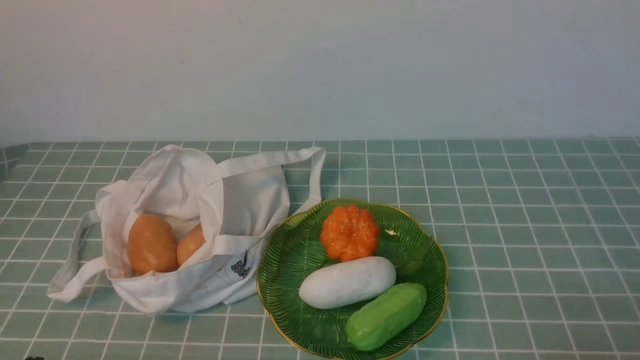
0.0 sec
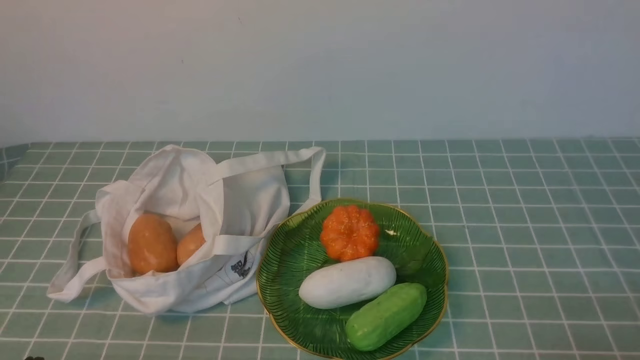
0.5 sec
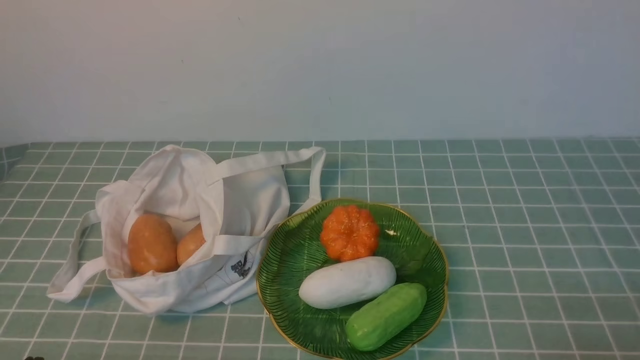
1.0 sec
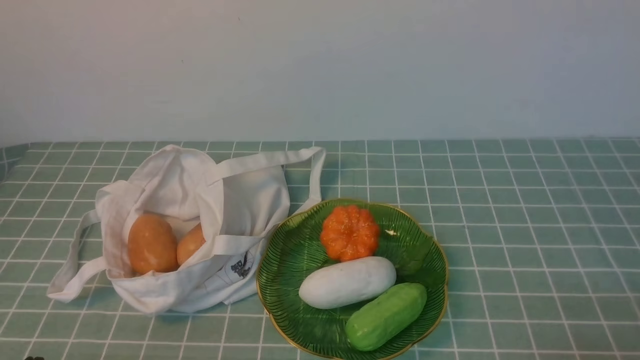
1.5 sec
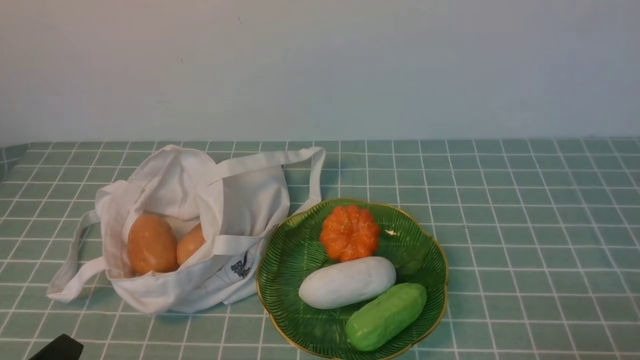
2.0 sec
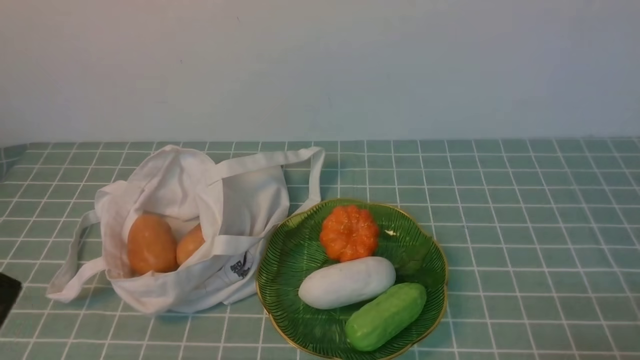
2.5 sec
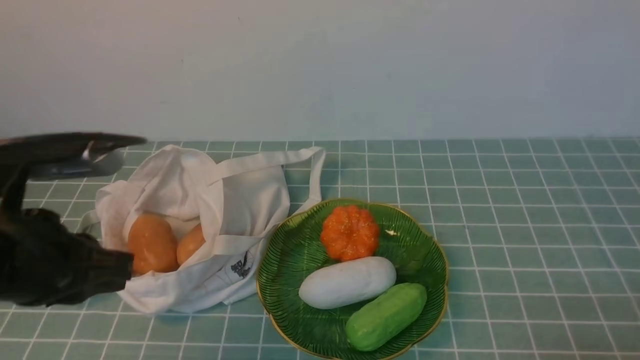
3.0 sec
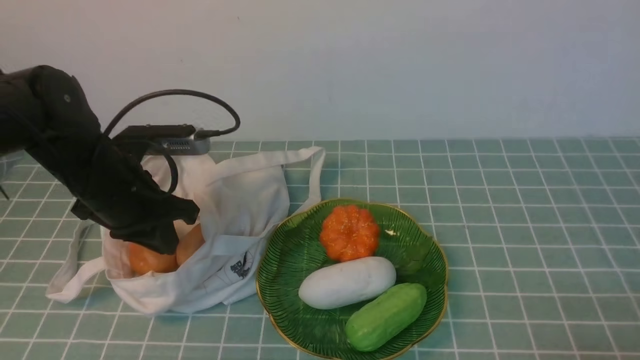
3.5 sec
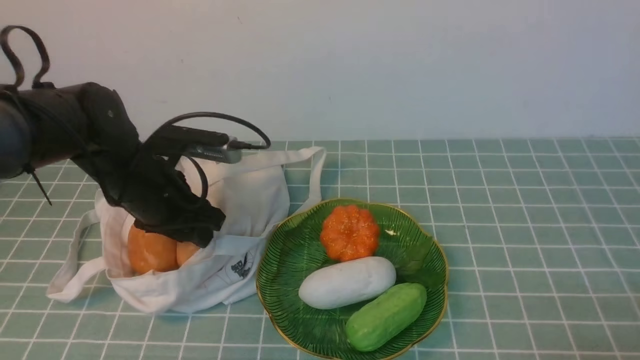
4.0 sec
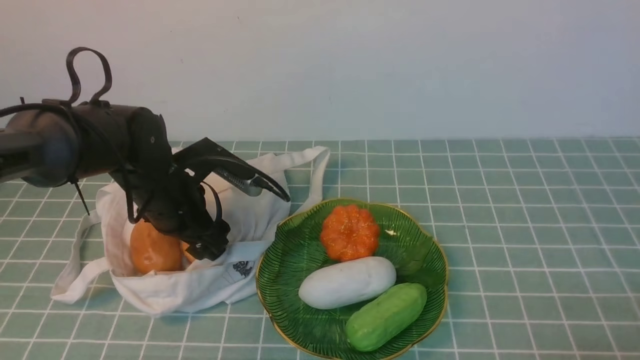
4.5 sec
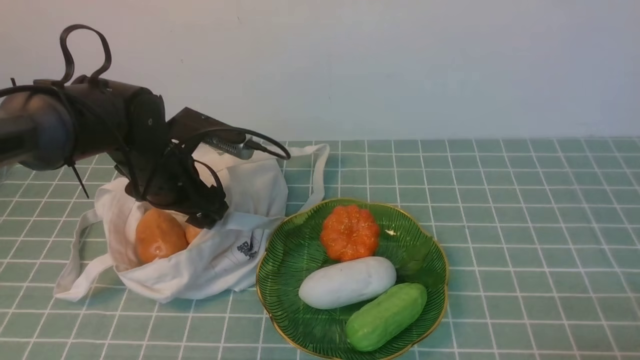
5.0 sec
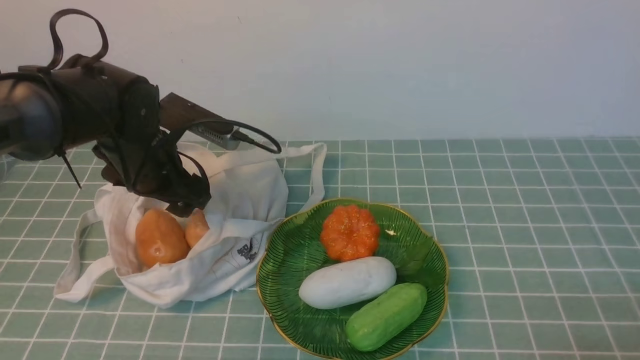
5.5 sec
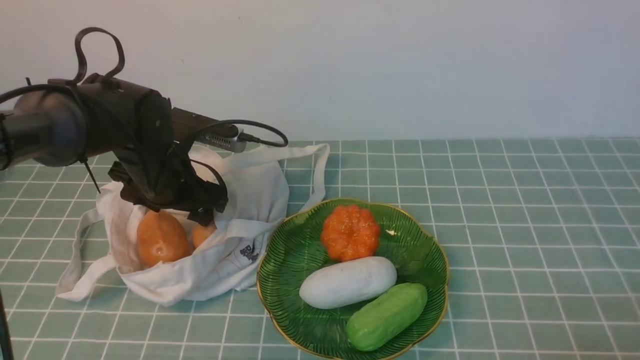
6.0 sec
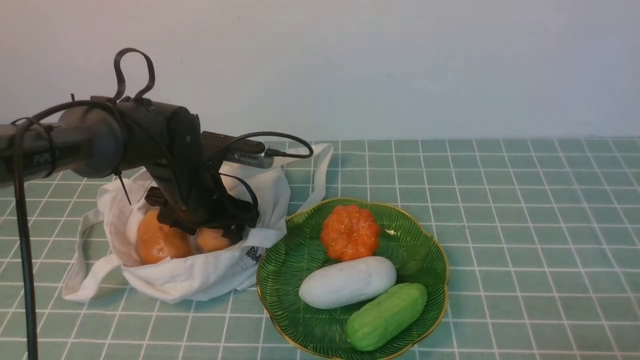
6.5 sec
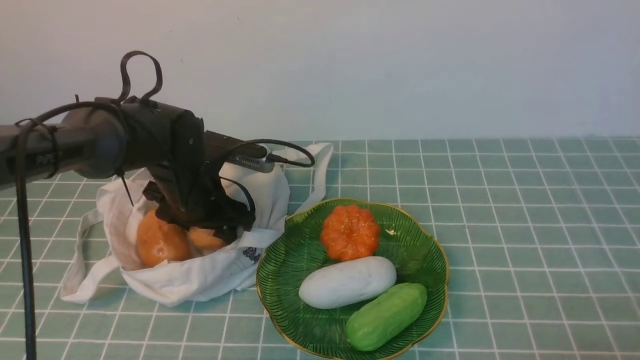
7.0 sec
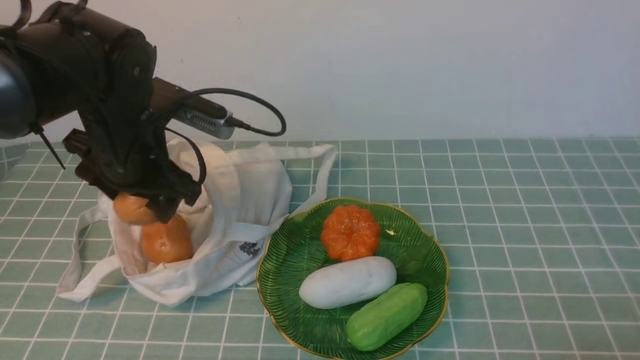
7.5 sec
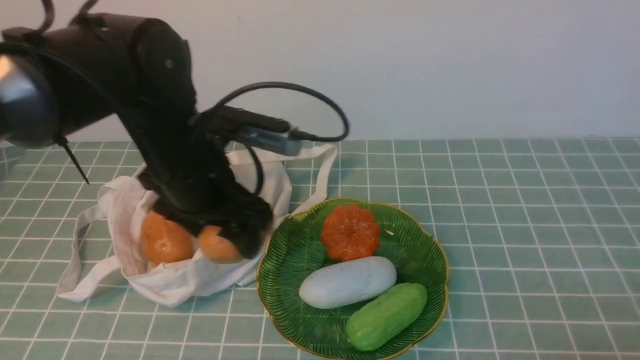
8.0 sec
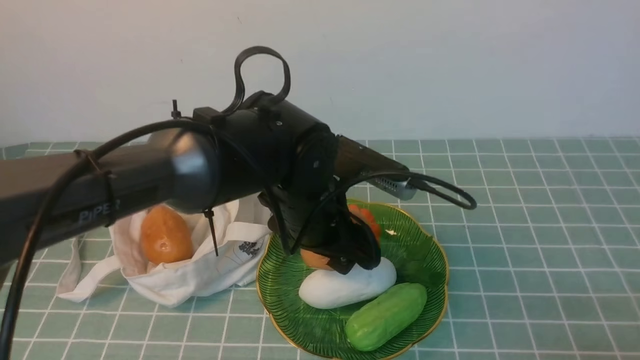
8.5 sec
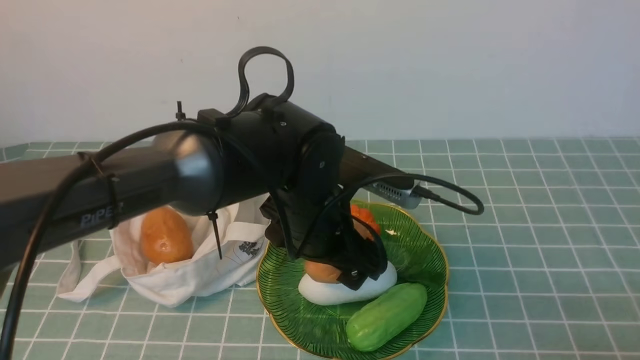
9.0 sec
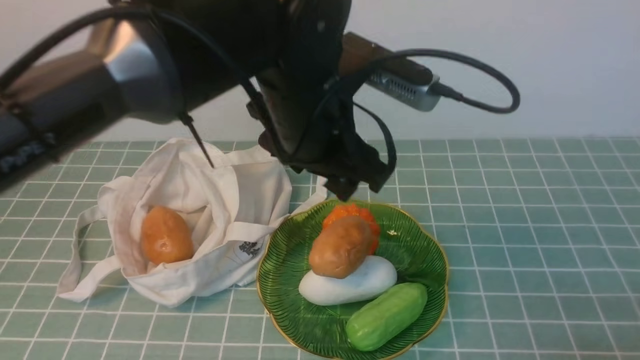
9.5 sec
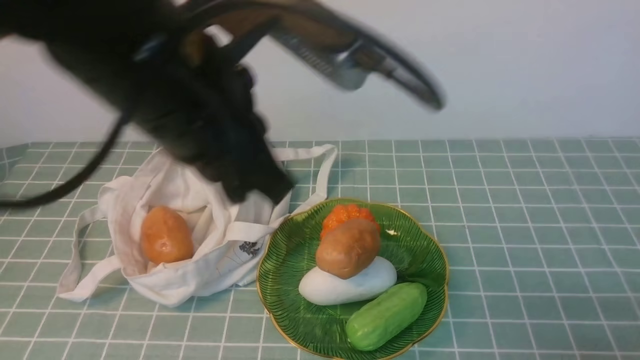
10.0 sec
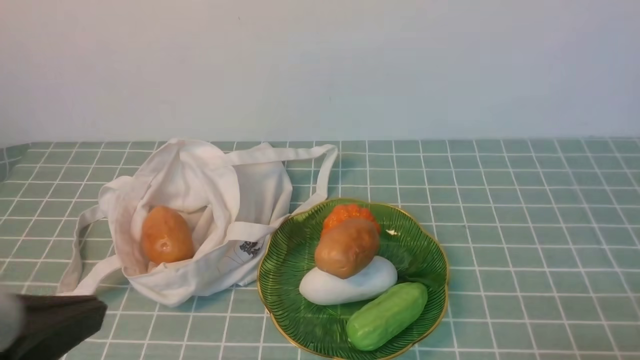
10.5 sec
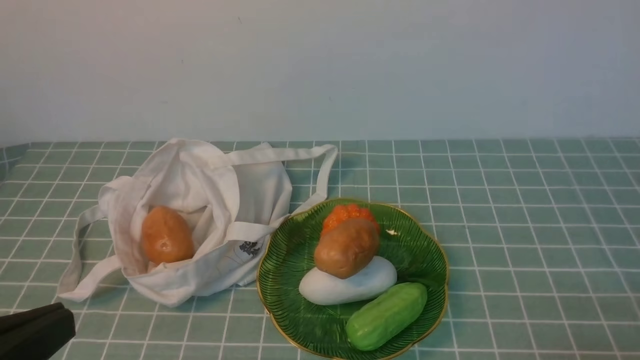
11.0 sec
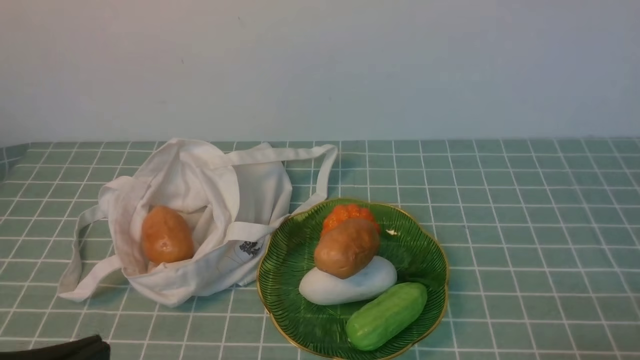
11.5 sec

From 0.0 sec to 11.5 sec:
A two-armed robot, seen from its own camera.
Task of the whole recording: take vegetables from cloth bag on blue coffee tablecloth place on plate.
Step, from 0.0 sec to 6.5 sec: Grasp the potato with left gripper.
Step, from 7.0 sec to 9.5 sec: Place the potato on the plate with left gripper.
From 2.0 sec to 4.0 sec: The left gripper moves forward, some 30 cm, and opens up.
From 4.0 sec to 6.0 sec: The left gripper opens.
From 6.0 sec to 7.5 sec: The left gripper travels upward by about 5 cm.
From 7.5 sec to 9.5 sec: The left gripper heads to the right, covering about 15 cm.
From 9.5 sec to 11.5 sec: The left gripper is displaced backward and to the left by approximately 35 cm, and closes up.

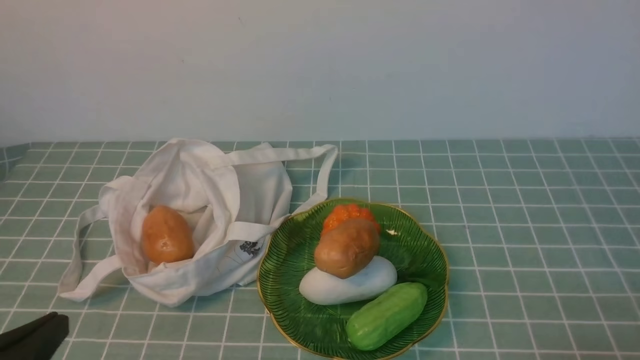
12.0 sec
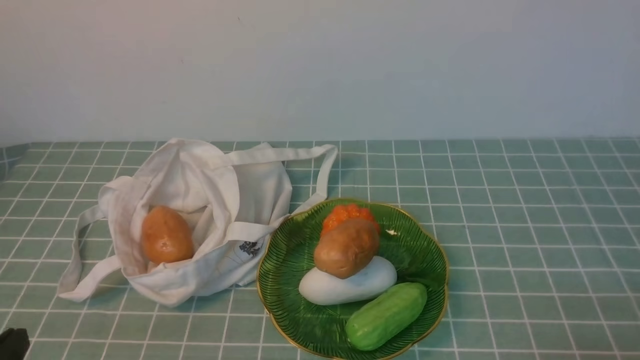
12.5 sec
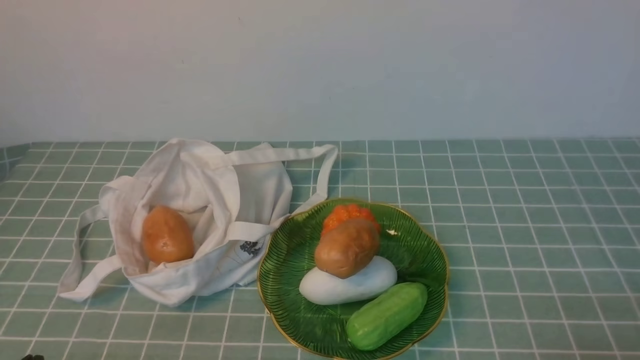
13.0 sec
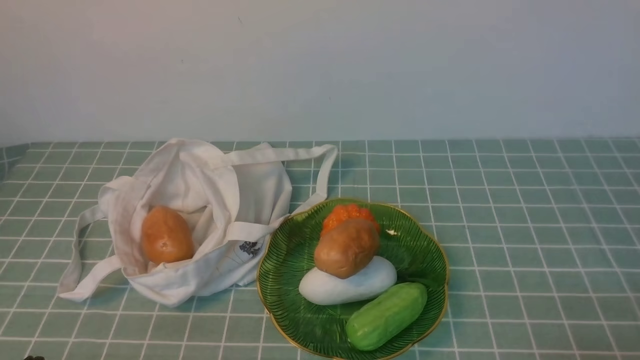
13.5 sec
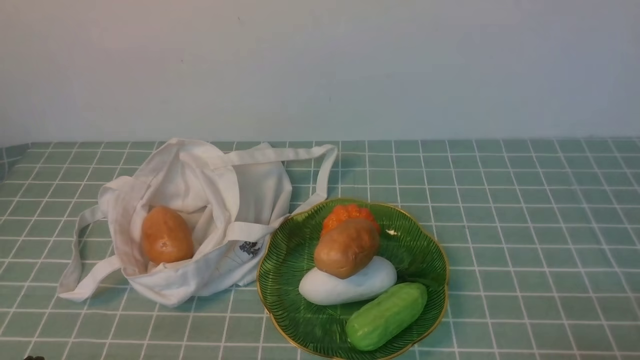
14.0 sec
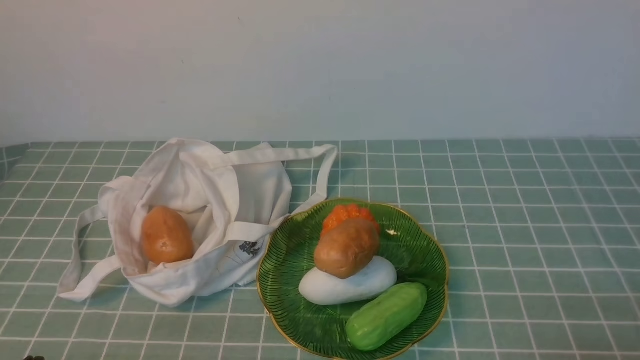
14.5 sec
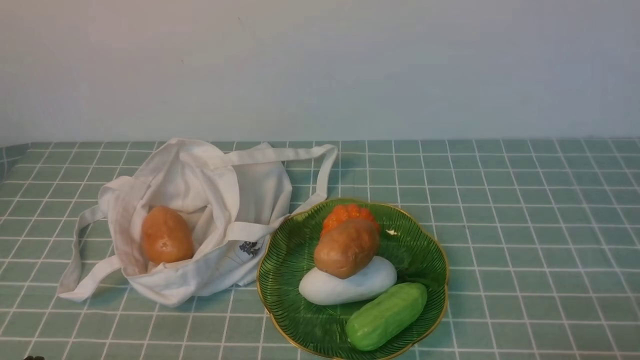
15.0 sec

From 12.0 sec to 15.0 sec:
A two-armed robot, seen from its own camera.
Task of the whole recording: take vegetables from cloth bag on blue coffee tablecloth place on plate.
From 12.0 sec to 13.5 sec: The left gripper travels downward by approximately 10 cm.
From 13.5 sec to 15.0 sec: Both grippers stay put.

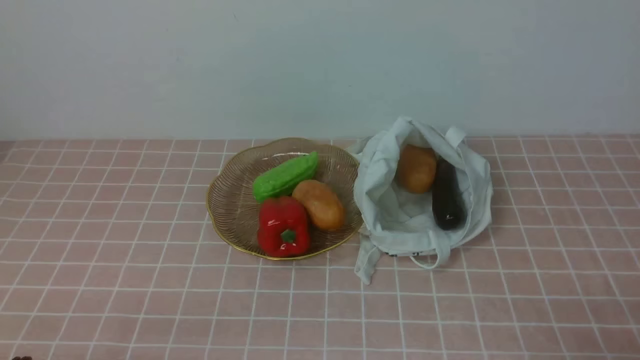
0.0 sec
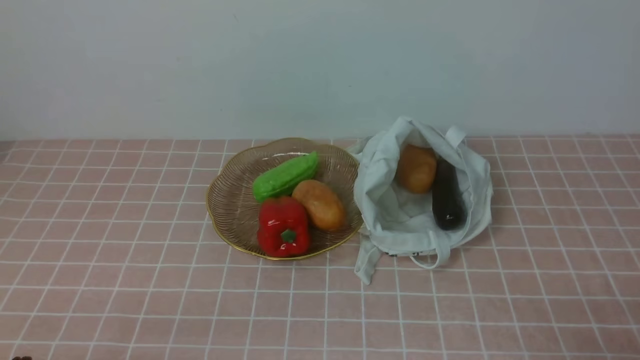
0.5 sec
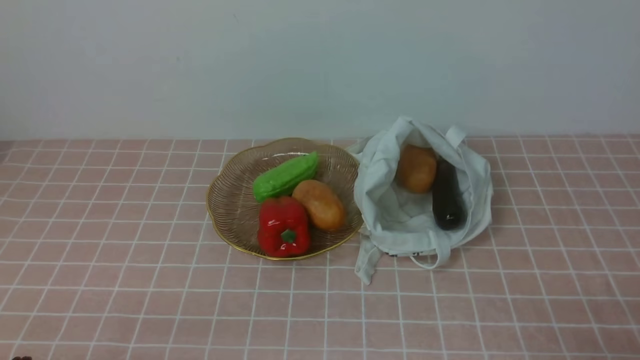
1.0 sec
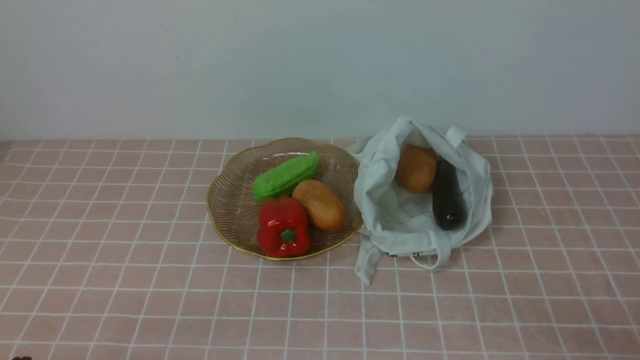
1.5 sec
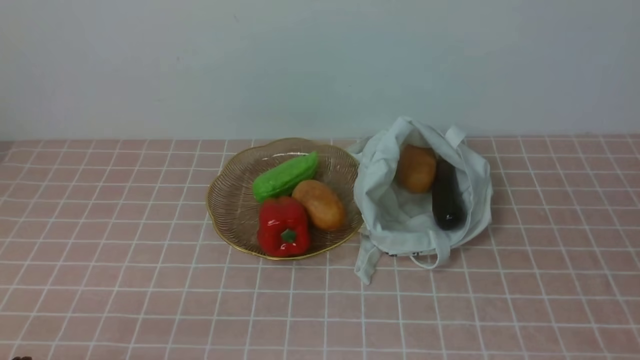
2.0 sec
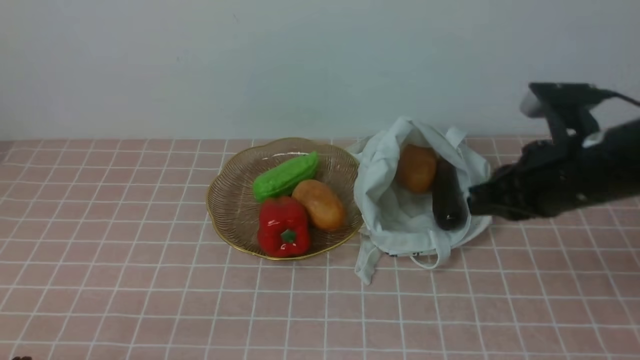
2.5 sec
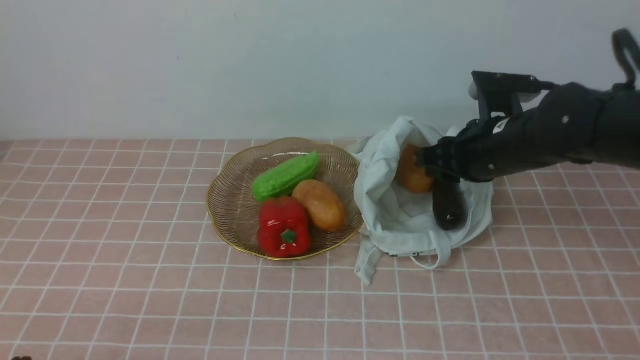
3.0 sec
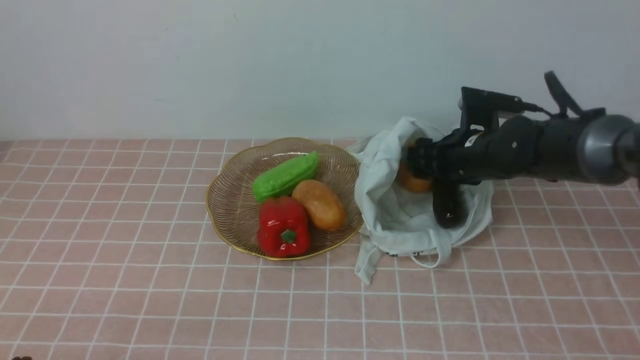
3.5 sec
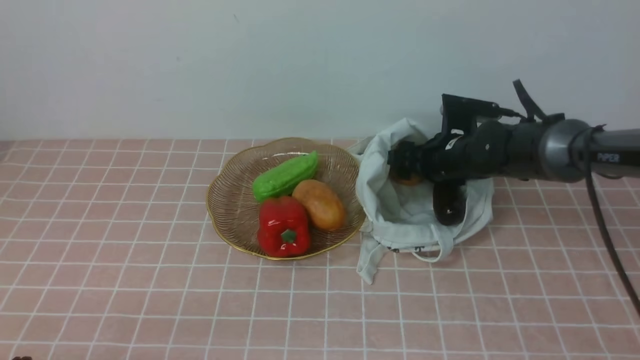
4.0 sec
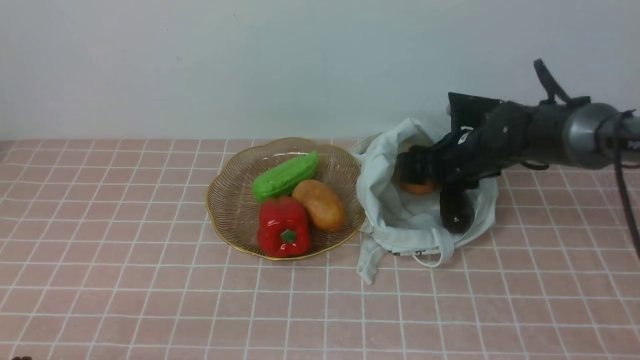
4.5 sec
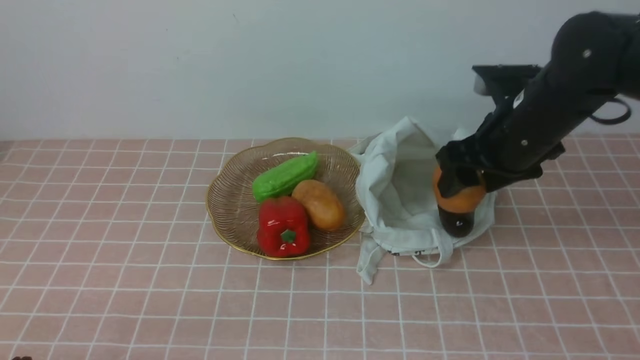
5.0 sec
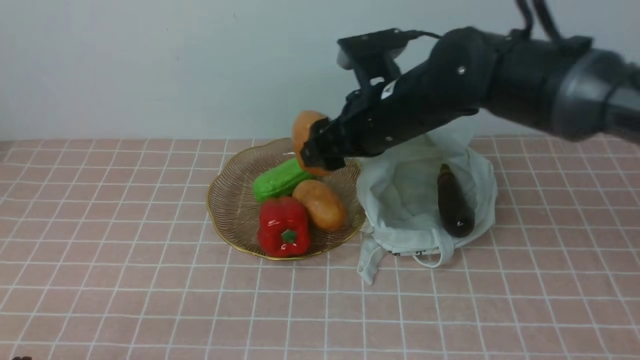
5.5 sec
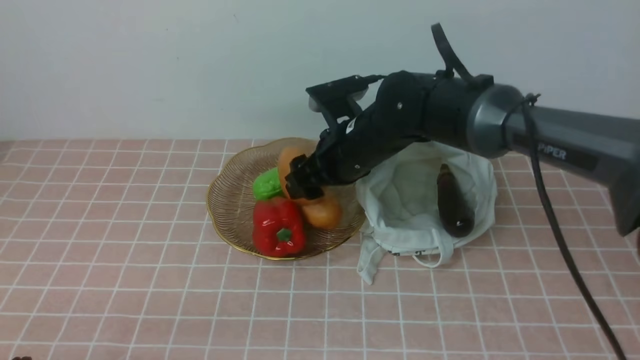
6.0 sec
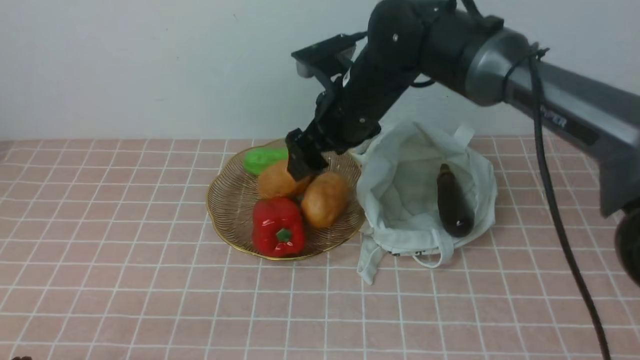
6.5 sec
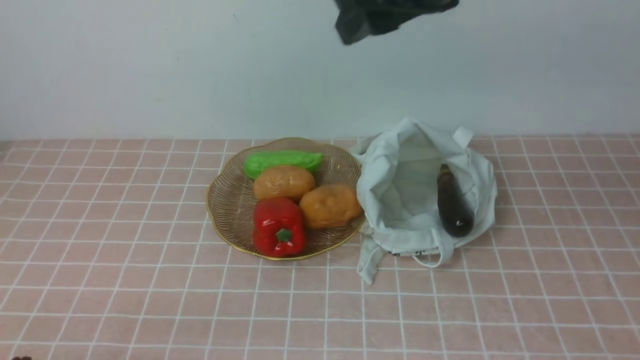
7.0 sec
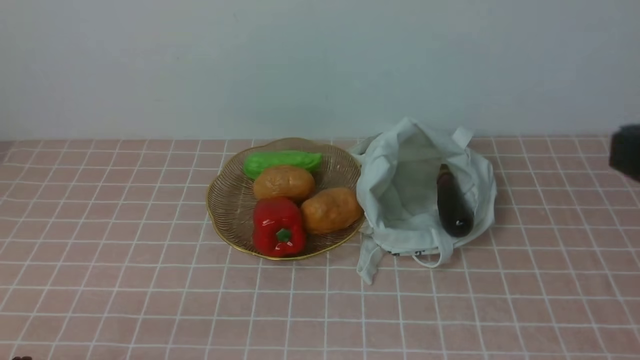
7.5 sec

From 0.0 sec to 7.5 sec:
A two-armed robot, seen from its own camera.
Task of the whole recording: take vegetables from bag on pink coffee tablecloth place on plate.
Step, from 0.0 sec to 4.0 sec: Grasp the eggplant with right gripper.
Step, from 4.5 sec to 6.5 sec: Place the eggplant on the plate with right gripper.
From 2.0 sec to 4.0 sec: The right gripper travels forward and downward by roughly 40 cm, and opens.
From 4.0 sec to 5.5 sec: The right gripper moves upward, backward and to the left, roughly 20 cm.
From 5.5 sec to 7.5 sec: The right gripper travels backward, to the right and upward by some 30 cm, and closes up.
